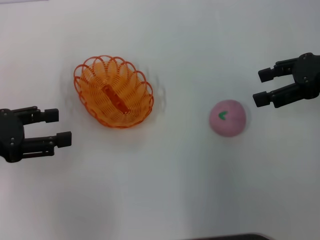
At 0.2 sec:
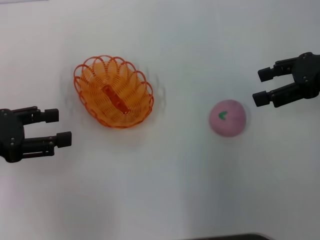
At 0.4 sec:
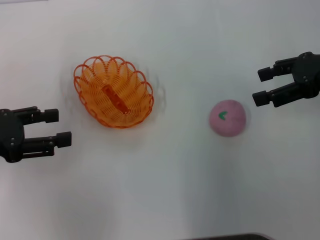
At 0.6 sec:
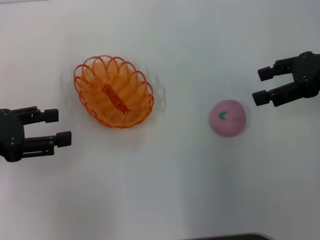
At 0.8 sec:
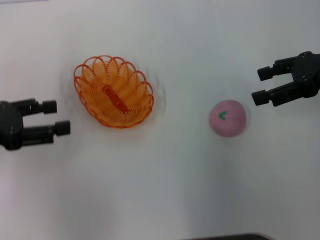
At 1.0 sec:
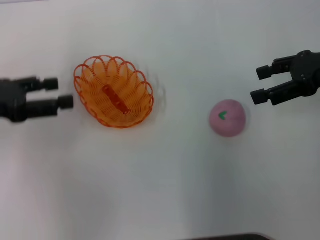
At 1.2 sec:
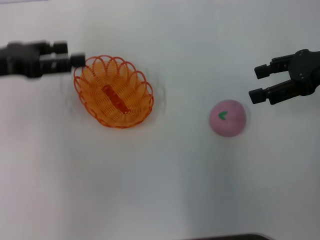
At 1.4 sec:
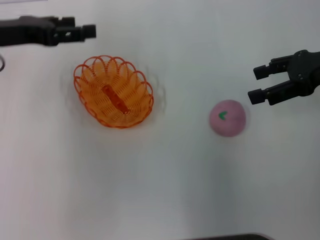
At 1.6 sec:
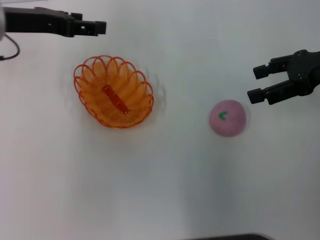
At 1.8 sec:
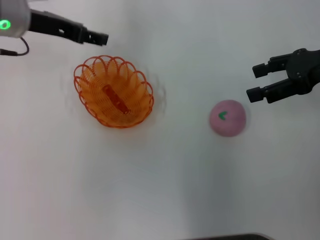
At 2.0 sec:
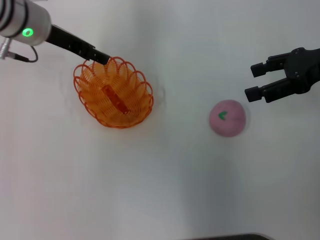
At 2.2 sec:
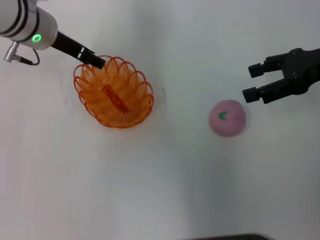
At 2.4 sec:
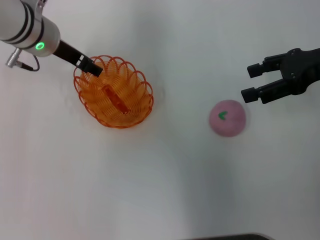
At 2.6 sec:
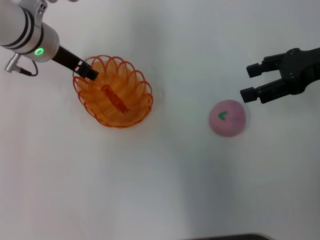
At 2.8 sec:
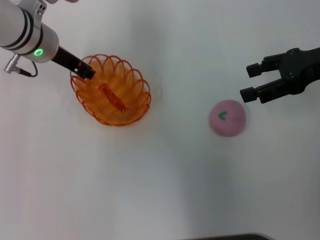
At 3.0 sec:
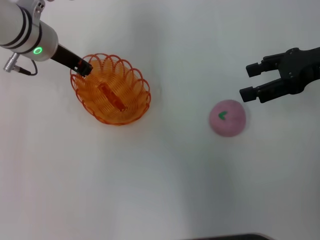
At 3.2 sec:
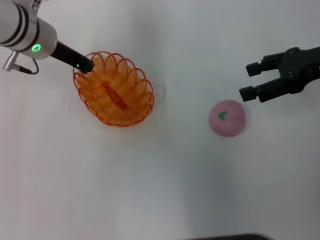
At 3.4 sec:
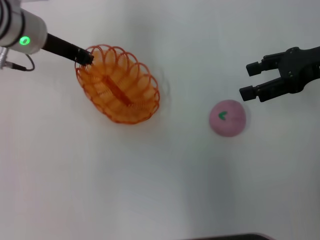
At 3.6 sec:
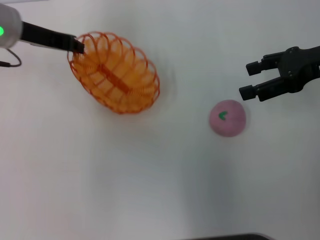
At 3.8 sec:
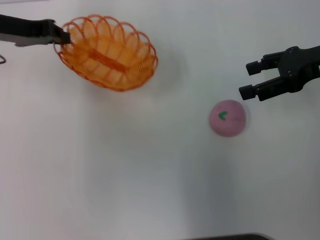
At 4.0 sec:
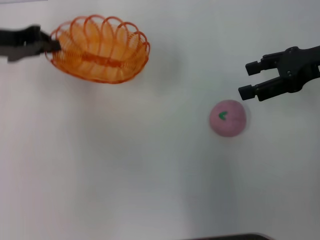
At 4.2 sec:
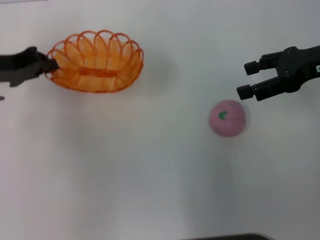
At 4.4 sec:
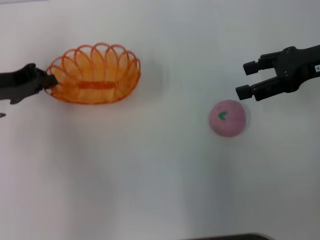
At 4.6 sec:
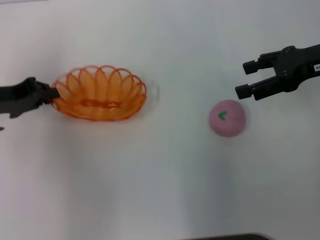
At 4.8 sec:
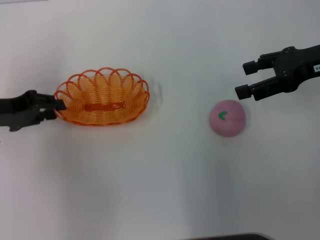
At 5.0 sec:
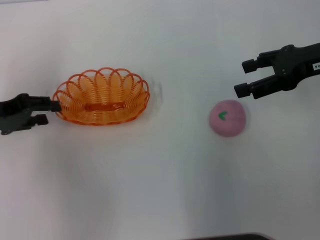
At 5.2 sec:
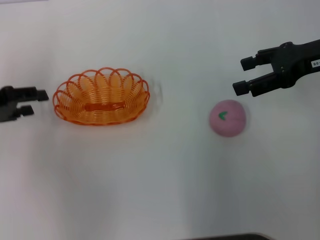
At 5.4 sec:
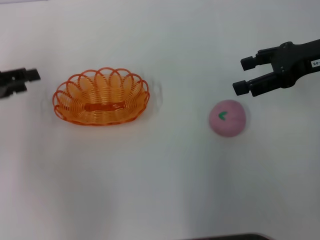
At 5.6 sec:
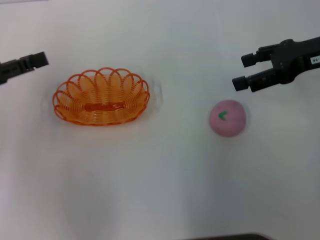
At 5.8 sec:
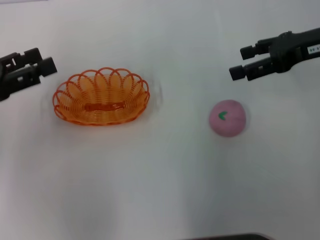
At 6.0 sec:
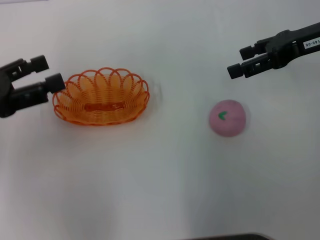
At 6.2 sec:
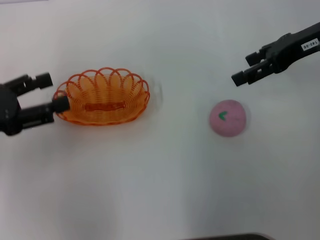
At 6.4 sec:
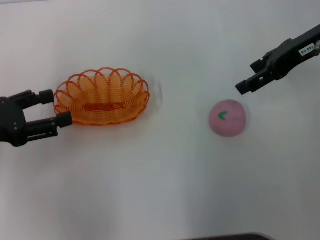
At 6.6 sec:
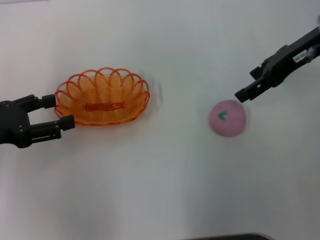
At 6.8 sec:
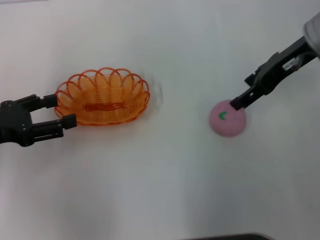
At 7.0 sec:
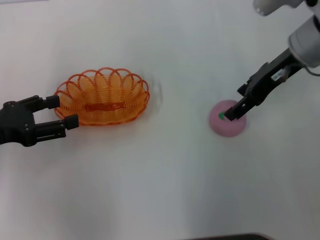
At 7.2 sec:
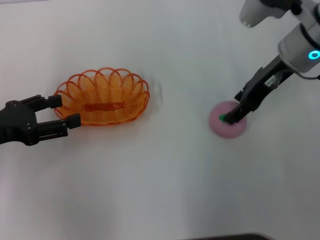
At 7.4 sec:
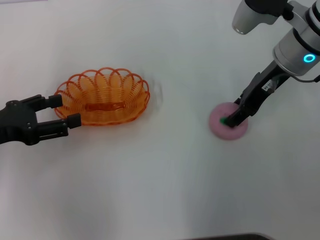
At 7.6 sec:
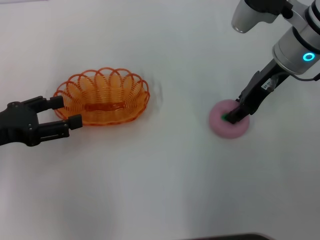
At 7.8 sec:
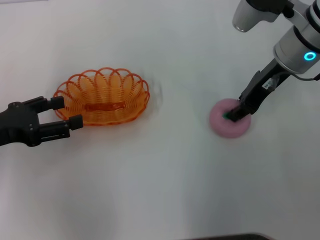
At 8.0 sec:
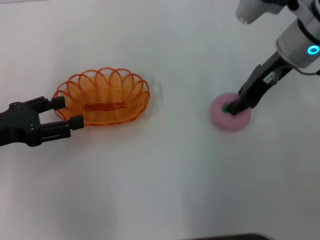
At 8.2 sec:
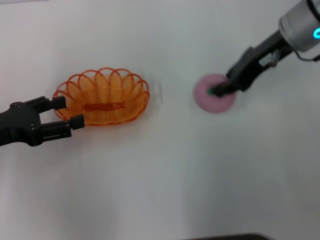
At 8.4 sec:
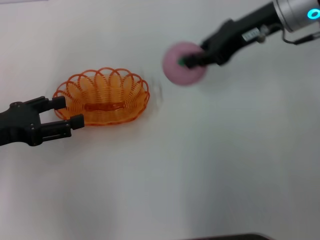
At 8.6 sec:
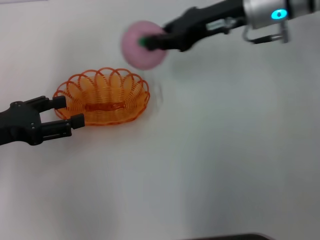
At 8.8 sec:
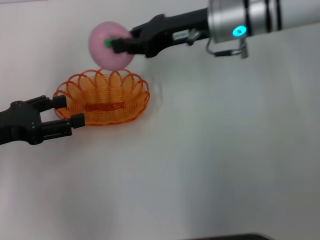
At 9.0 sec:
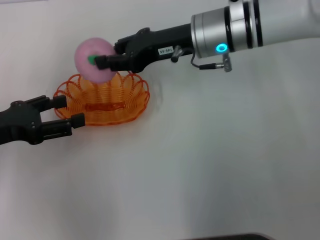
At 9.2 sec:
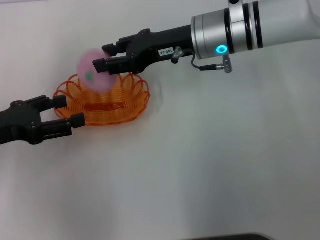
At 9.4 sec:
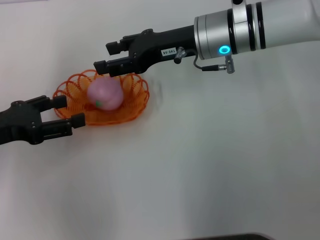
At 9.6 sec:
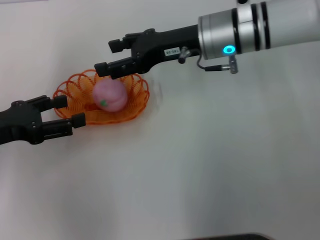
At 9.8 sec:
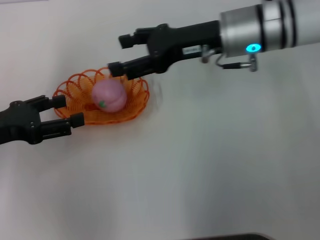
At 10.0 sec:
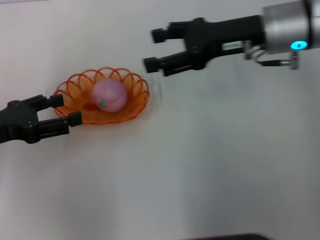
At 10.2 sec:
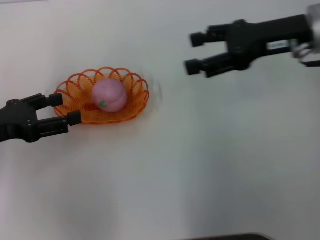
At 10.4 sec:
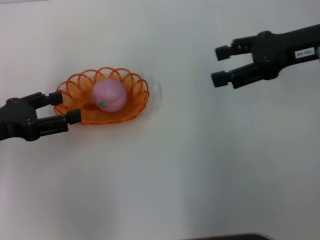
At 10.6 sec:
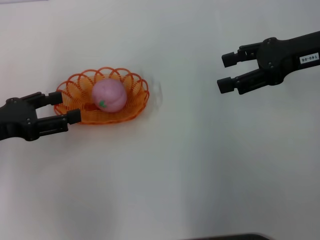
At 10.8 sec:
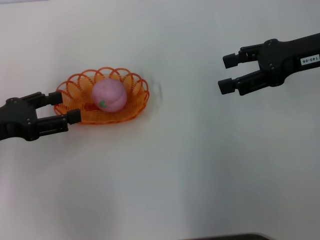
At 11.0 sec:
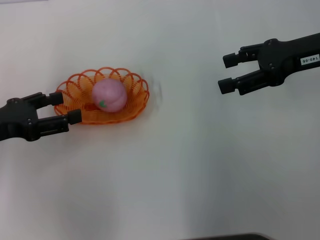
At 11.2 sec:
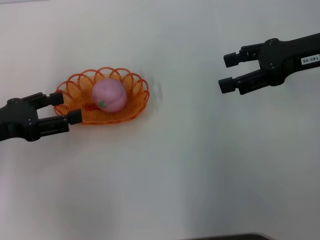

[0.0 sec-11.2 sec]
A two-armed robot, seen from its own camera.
Step, 0.0 sec to 3.2 sec: Pick up the basket with the left gripper.
Step, 3.4 sec to 5.0 sec: Place the basket in the center of view with the left gripper.
Step, 5.4 sec to 8.0 sec: Pick up the peach with the right gripper.
Step, 8.4 sec to 10.0 sec: Place the peach into the basket with the right gripper.
0.0 sec to 1.6 sec: The left gripper goes about 15 cm forward and to the right.
1.6 sec to 3.2 sec: The left gripper moves to the right, some 5 cm, and closes up.
3.2 sec to 4.8 sec: The left gripper moves to the left and backward, approximately 15 cm.
4.8 sec to 6.4 sec: The right gripper moves some 5 cm; the left gripper moves backward, approximately 5 cm, and opens.
6.4 sec to 8.0 sec: The right gripper travels to the left by some 5 cm, and closes its fingers.
8.0 sec to 9.6 sec: The right gripper travels to the left by approximately 10 cm, and opens.
9.6 sec to 11.2 sec: The right gripper moves to the right, some 15 cm.
